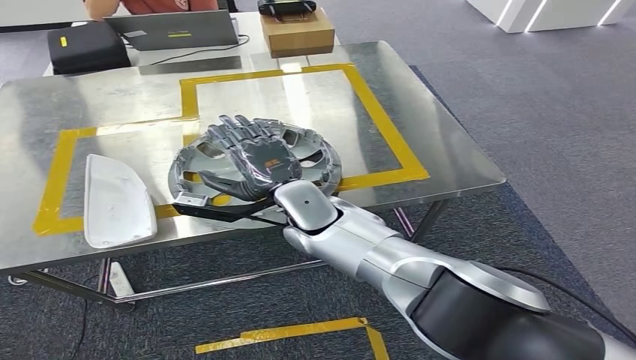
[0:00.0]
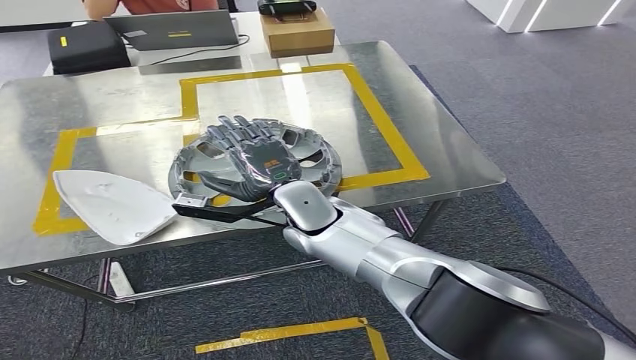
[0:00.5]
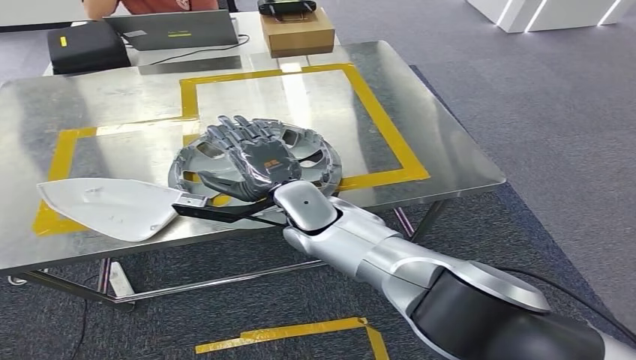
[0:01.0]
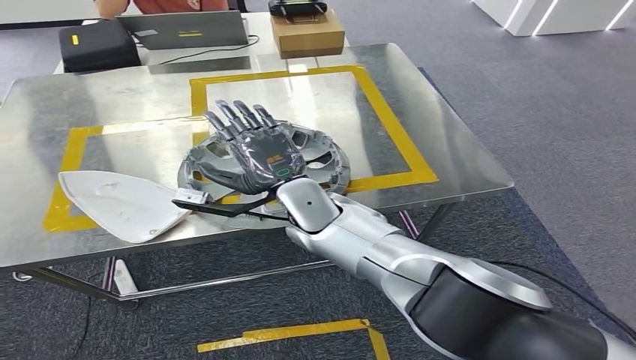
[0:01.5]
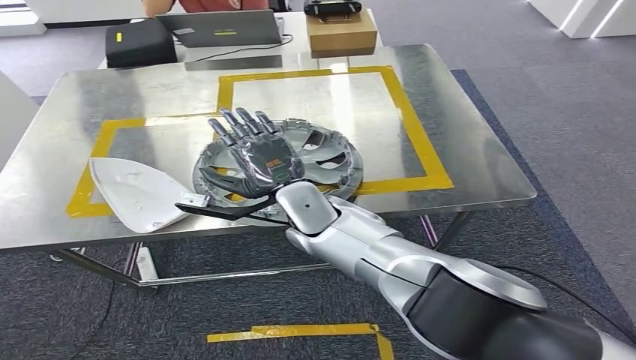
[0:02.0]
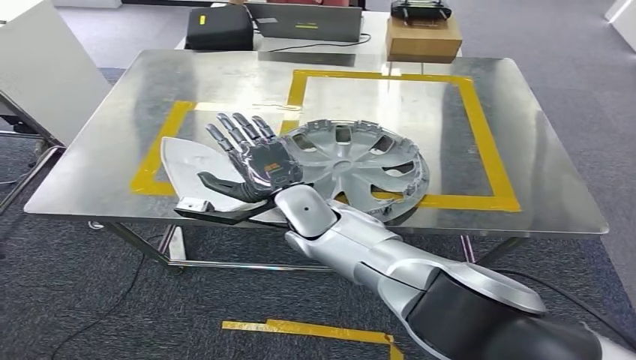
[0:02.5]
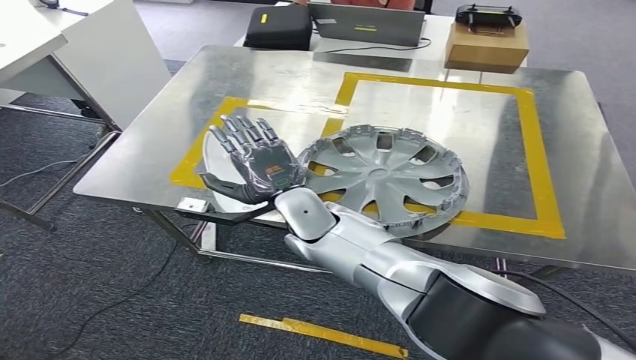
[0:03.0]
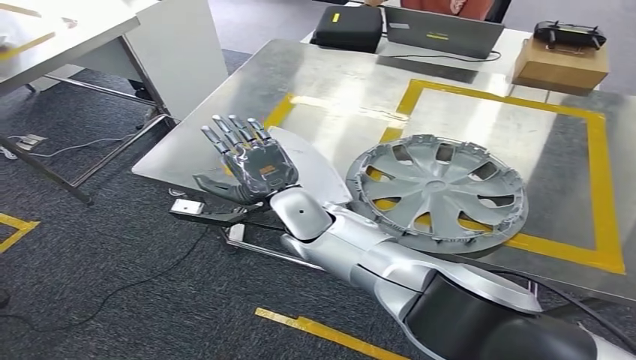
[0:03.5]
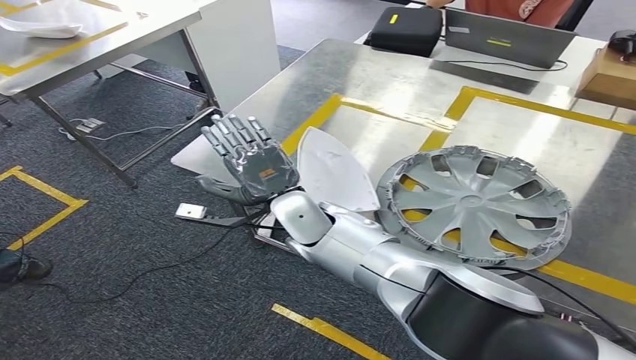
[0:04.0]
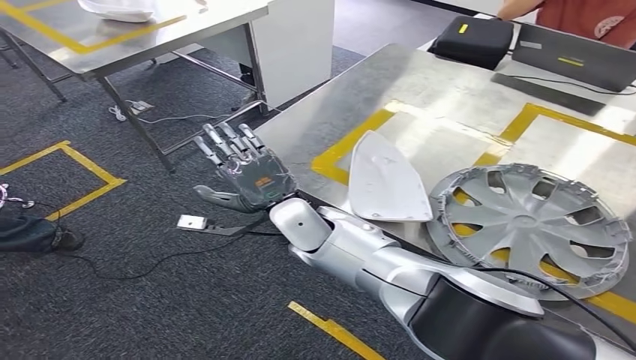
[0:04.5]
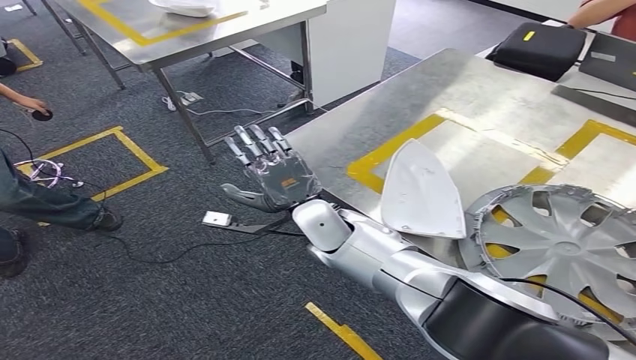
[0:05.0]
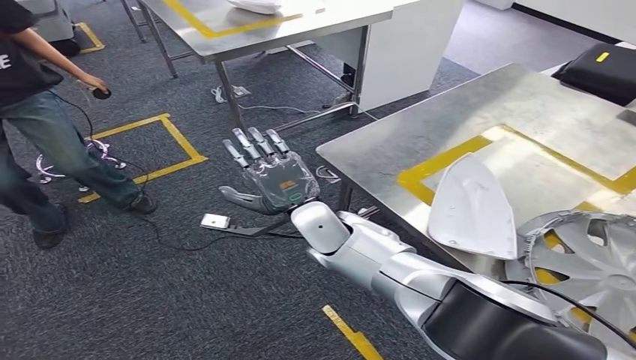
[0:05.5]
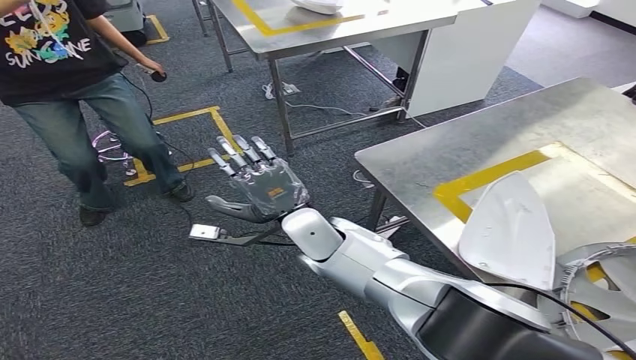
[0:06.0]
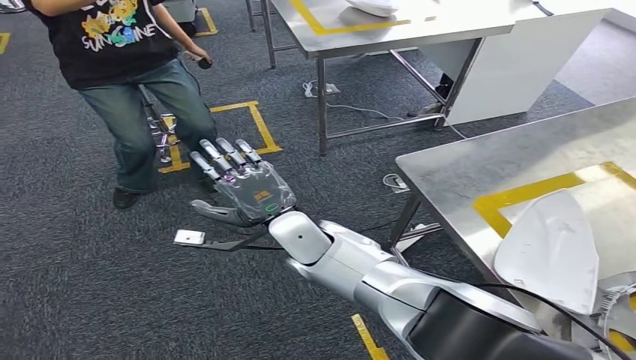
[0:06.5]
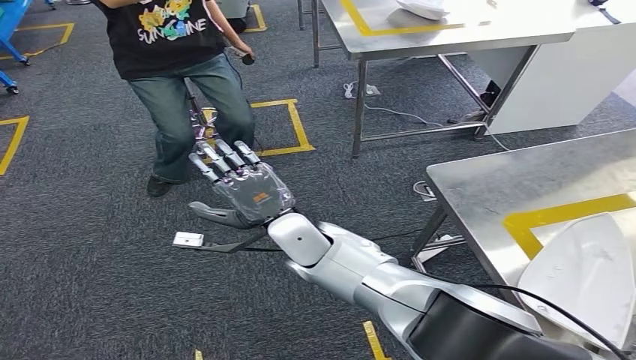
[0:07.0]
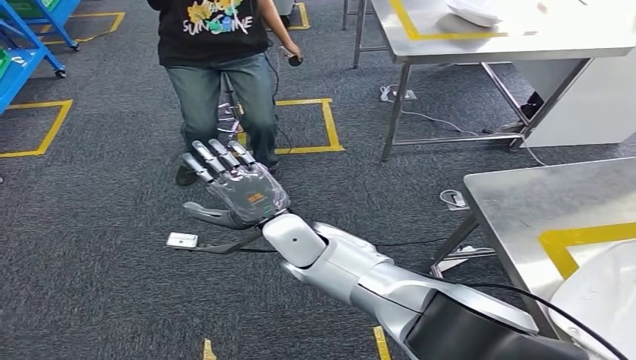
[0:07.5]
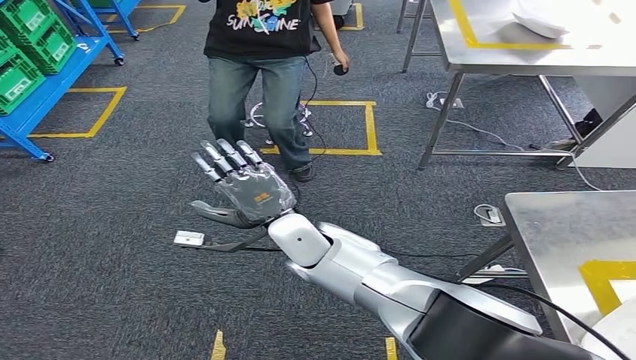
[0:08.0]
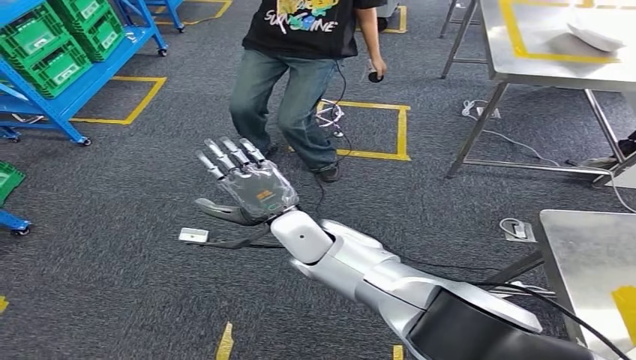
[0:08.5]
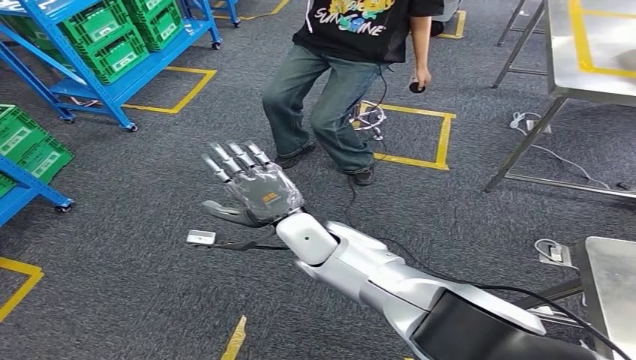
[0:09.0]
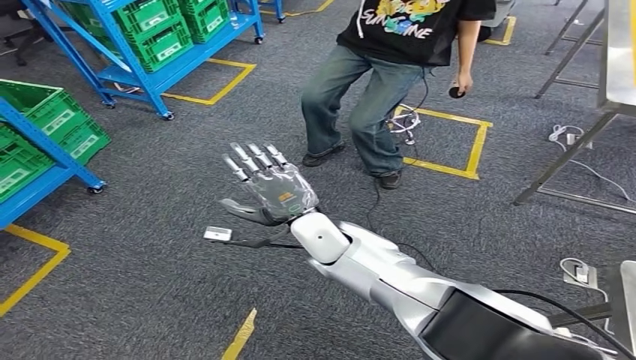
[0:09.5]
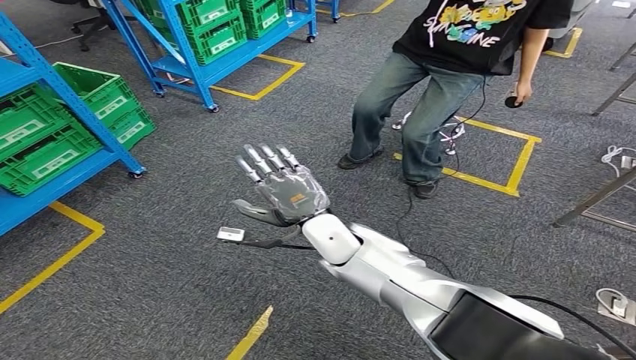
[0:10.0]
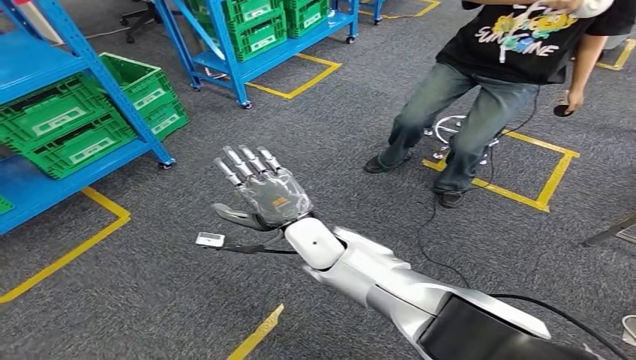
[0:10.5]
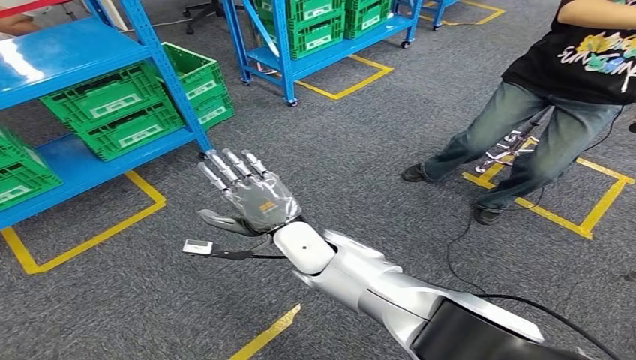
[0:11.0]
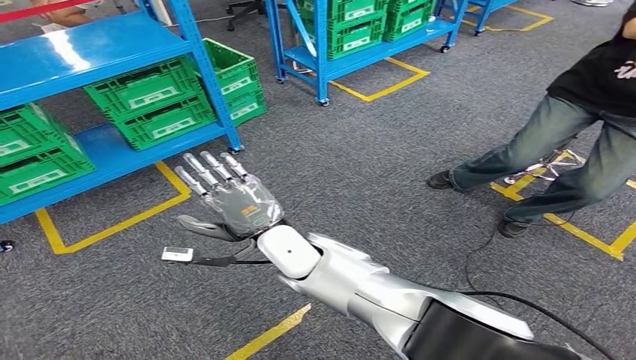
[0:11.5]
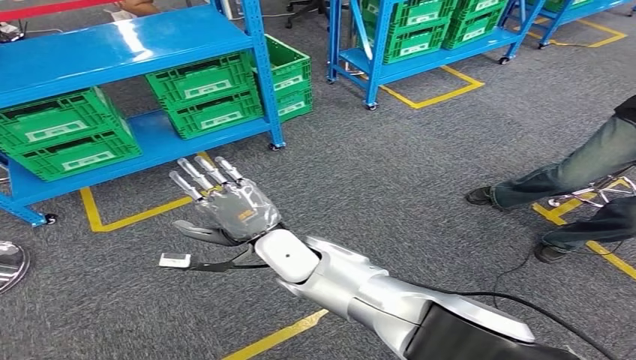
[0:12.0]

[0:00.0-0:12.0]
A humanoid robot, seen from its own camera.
Step, 0:00.0 to 0:02.5: Insert the small parts into the corresponding holes on the workbench.

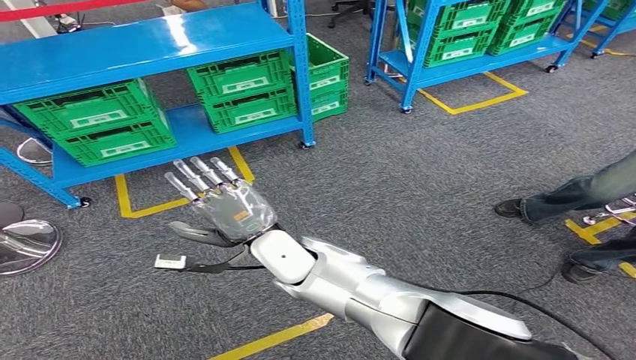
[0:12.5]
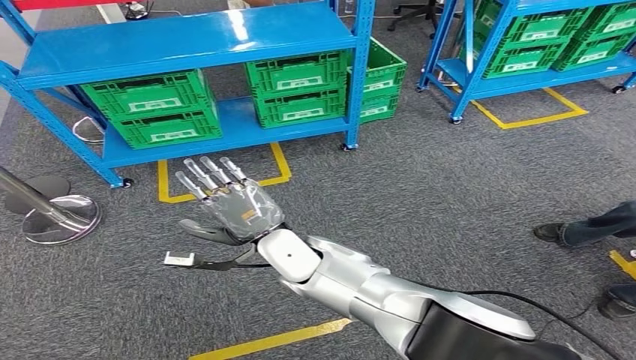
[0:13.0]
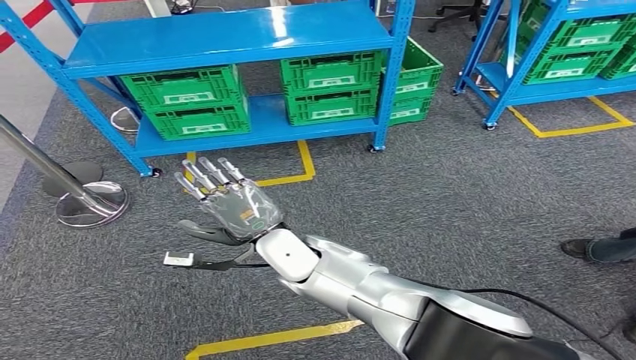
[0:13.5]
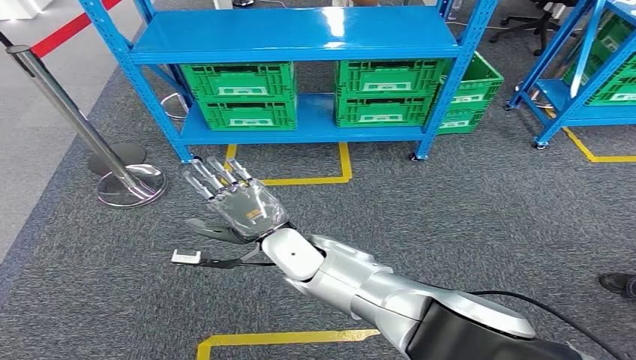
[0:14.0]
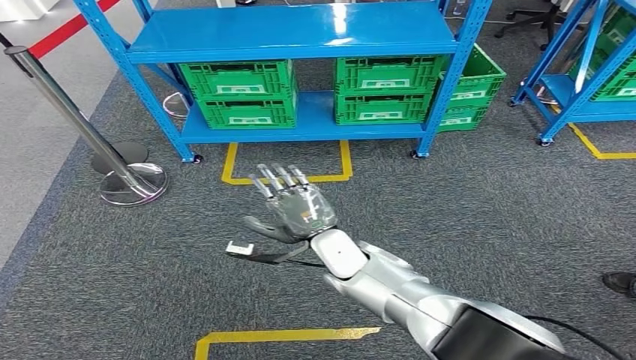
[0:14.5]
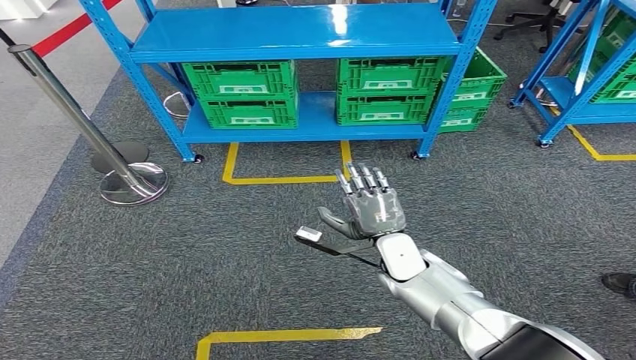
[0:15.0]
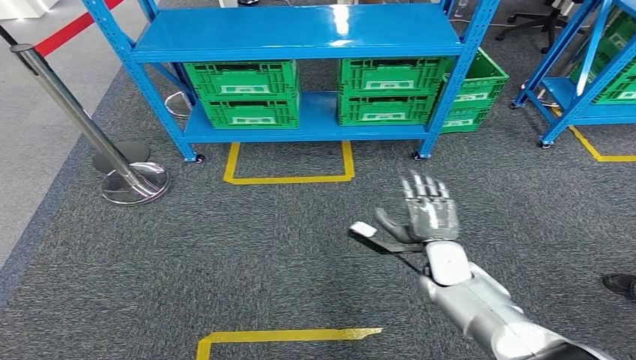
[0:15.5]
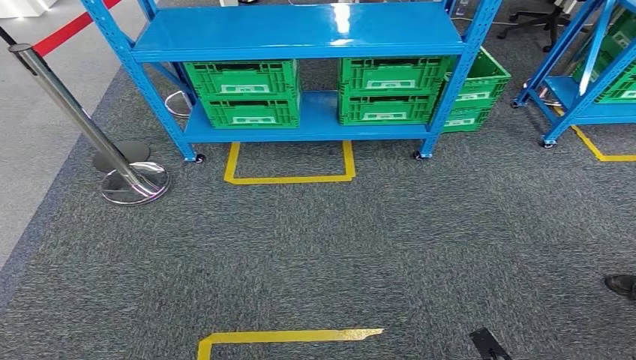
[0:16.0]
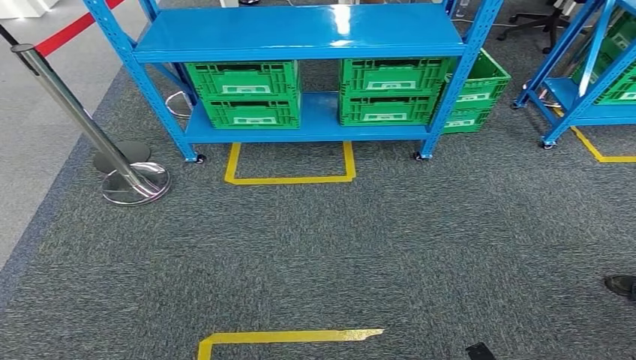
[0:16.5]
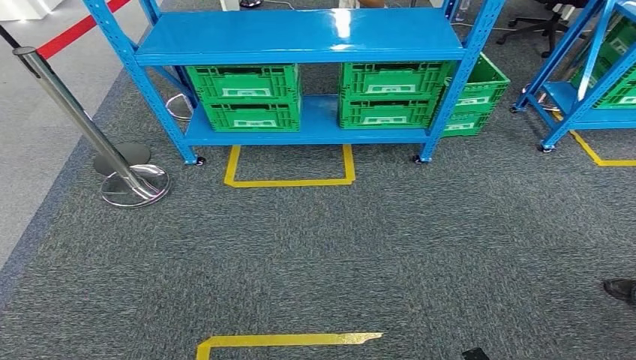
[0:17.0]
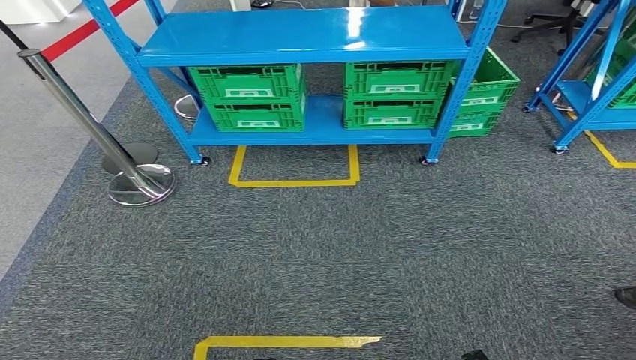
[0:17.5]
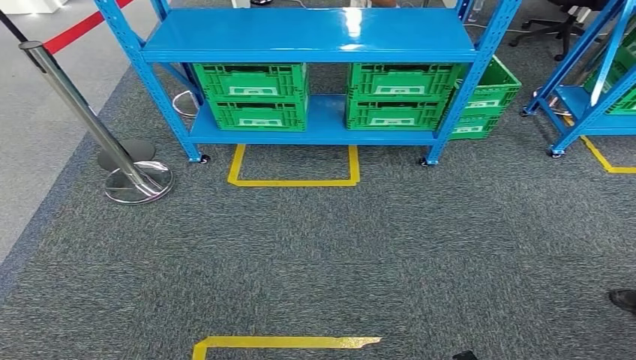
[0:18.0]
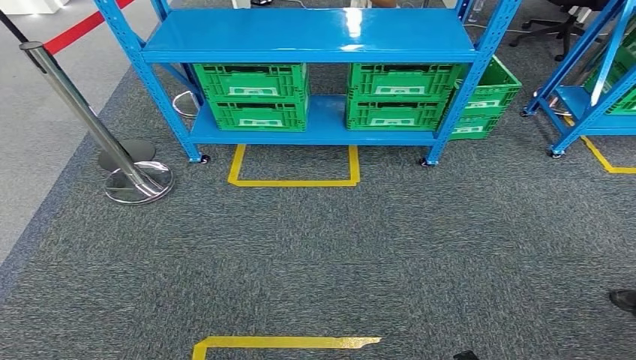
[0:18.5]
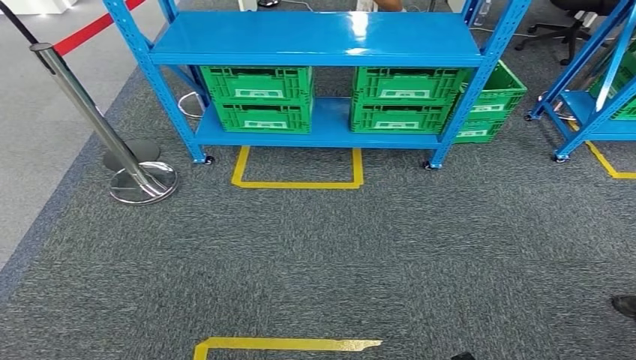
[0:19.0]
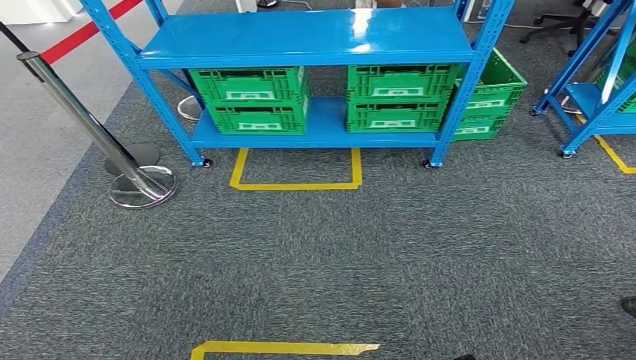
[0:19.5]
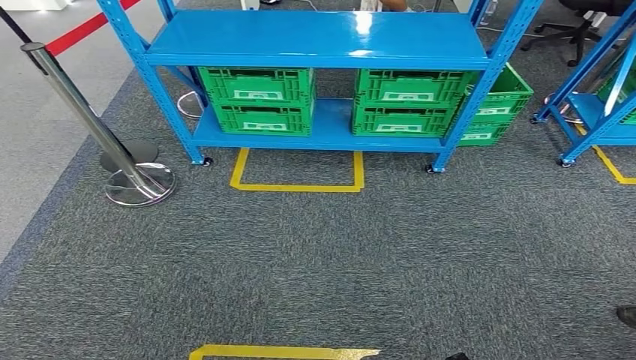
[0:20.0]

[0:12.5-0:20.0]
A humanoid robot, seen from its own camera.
Step, 0:12.5 to 0:20.0: Move to the initial position of the workbench.
0:14.5 to 0:16.5: The right hand is displaced backward, to the right and downward by roughly 40 cm.
0:16.5 to 0:18.0: The hands move only a little.
0:18.0 to 0:20.0: Neither hand changes place.
